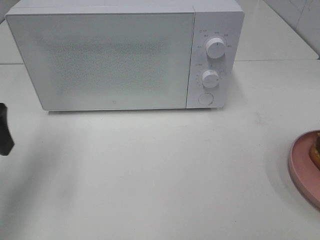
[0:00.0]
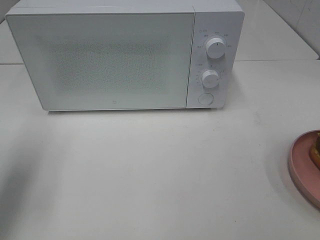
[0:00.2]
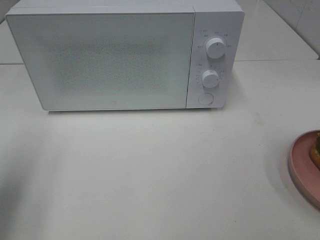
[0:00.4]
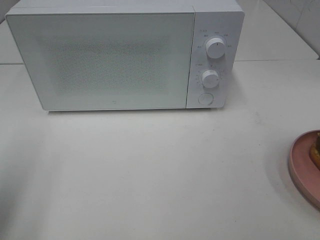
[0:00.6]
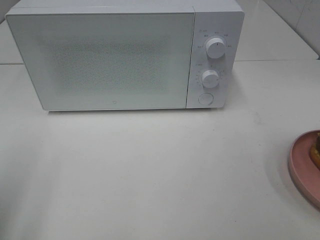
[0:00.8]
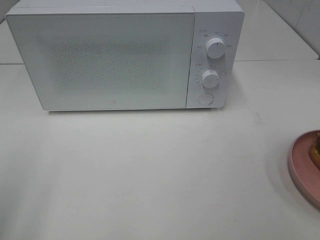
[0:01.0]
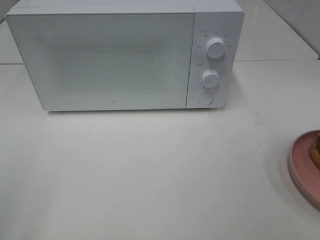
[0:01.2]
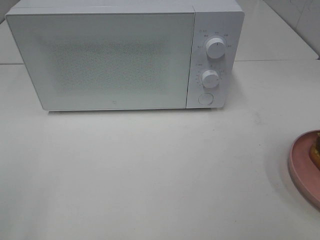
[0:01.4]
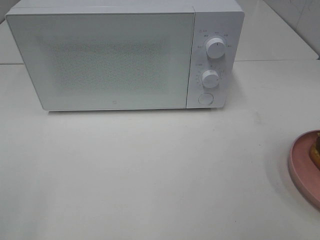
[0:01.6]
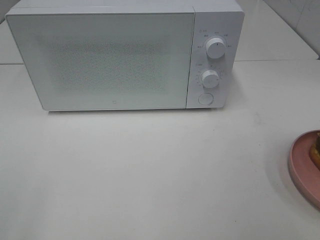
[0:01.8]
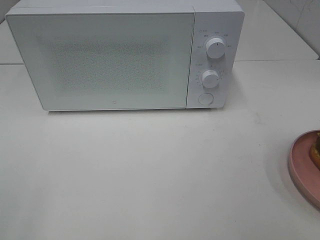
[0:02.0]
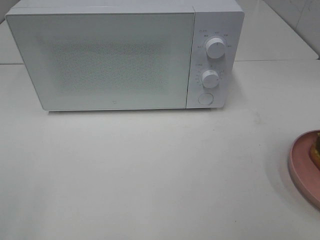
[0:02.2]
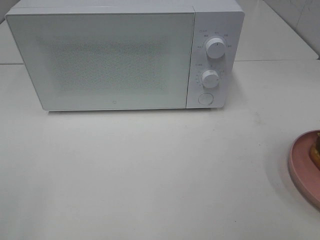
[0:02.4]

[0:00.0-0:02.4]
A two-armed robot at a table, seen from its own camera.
Task of the whole recording: Heat the burger.
0:00.0 to 0:01.2: The left gripper travels backward by approximately 20 cm.

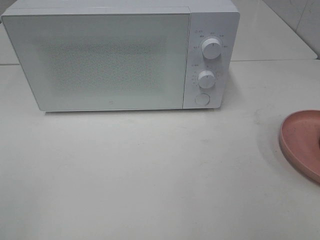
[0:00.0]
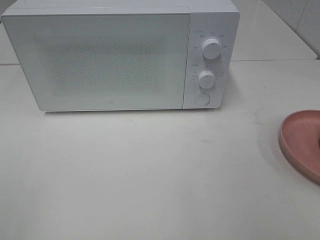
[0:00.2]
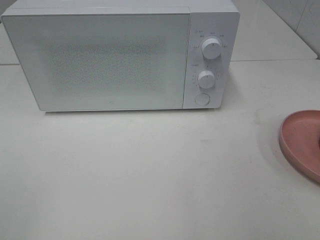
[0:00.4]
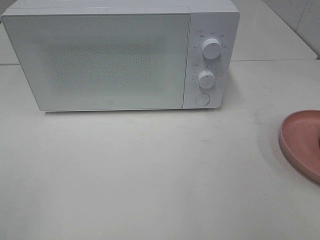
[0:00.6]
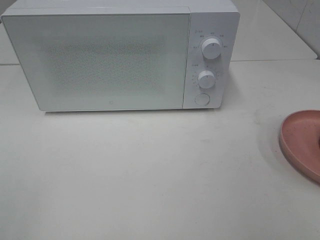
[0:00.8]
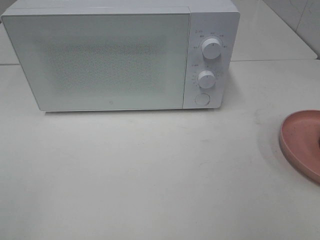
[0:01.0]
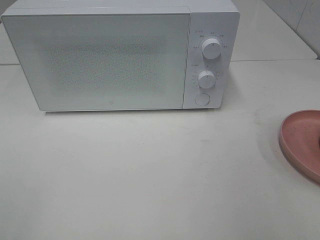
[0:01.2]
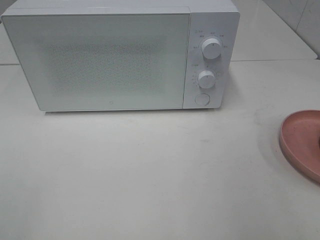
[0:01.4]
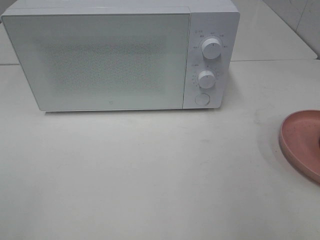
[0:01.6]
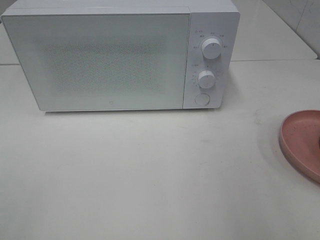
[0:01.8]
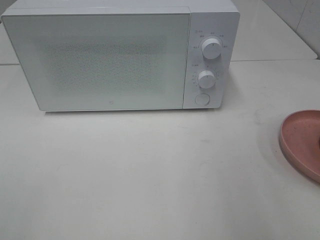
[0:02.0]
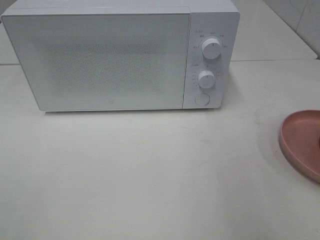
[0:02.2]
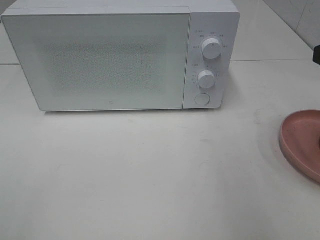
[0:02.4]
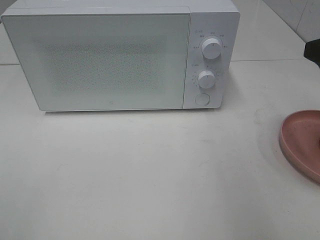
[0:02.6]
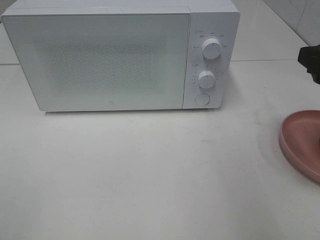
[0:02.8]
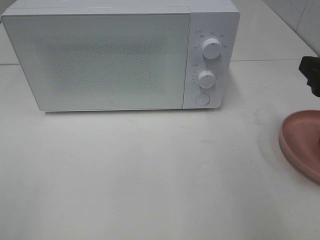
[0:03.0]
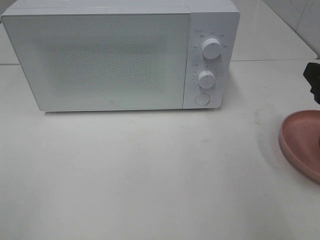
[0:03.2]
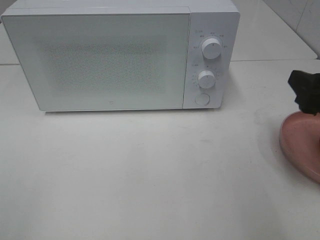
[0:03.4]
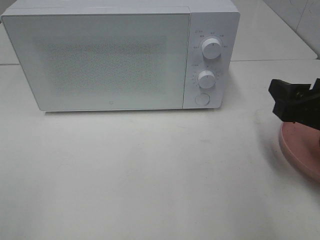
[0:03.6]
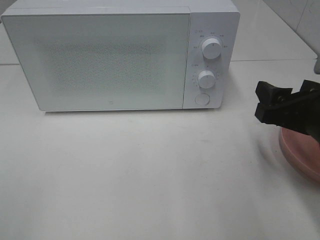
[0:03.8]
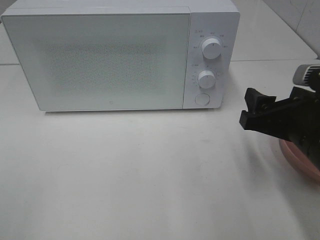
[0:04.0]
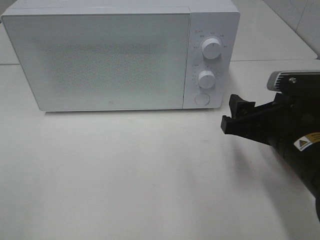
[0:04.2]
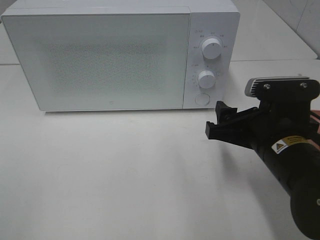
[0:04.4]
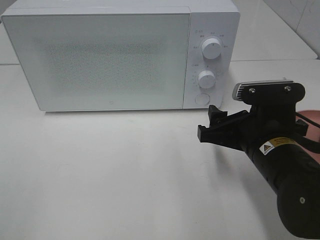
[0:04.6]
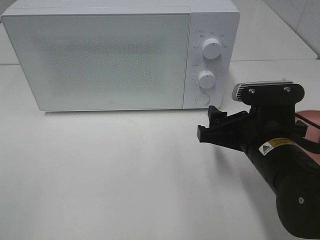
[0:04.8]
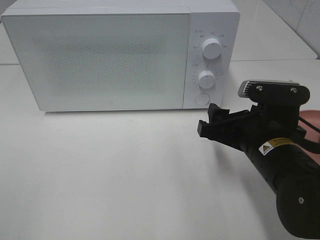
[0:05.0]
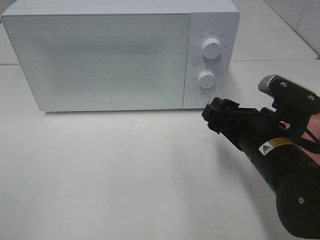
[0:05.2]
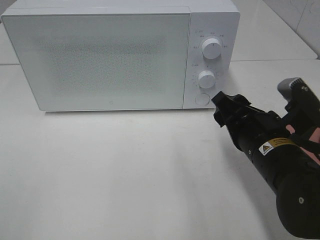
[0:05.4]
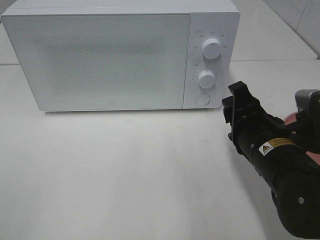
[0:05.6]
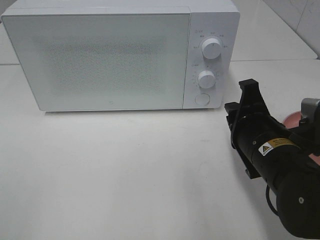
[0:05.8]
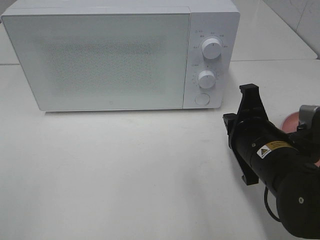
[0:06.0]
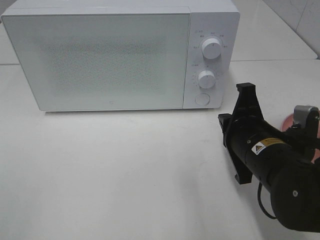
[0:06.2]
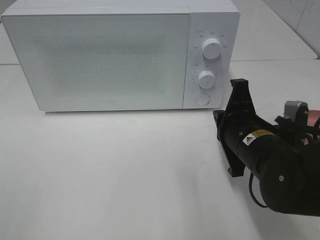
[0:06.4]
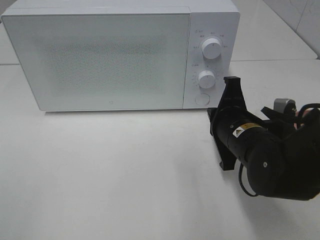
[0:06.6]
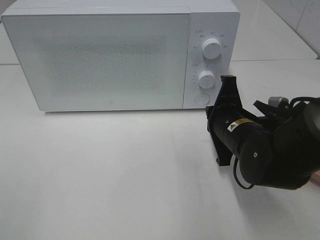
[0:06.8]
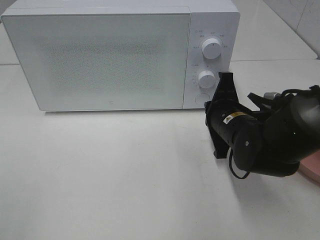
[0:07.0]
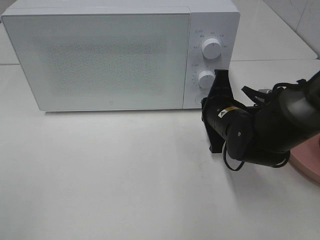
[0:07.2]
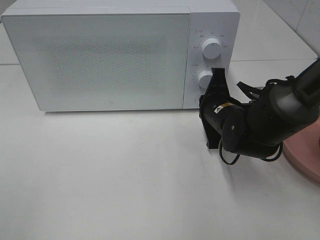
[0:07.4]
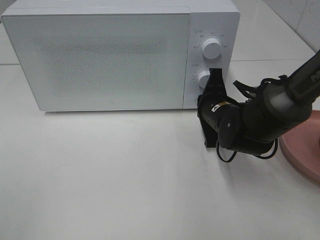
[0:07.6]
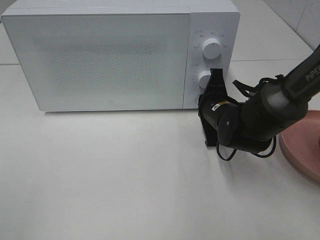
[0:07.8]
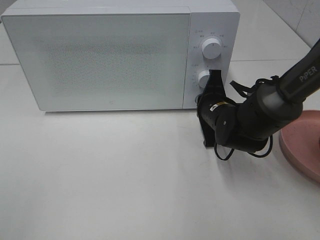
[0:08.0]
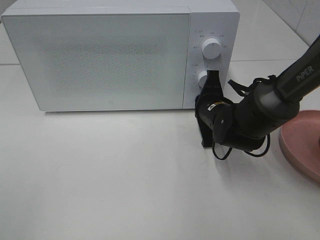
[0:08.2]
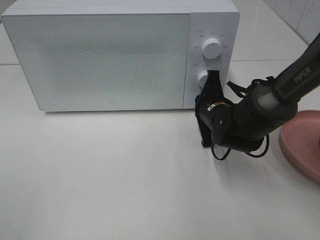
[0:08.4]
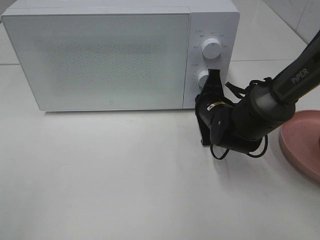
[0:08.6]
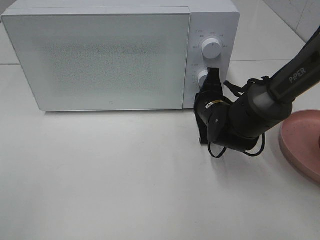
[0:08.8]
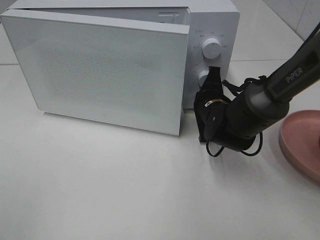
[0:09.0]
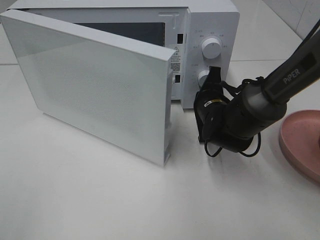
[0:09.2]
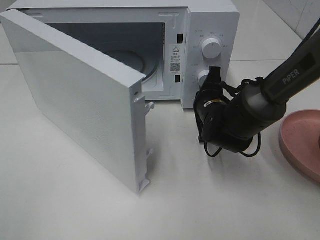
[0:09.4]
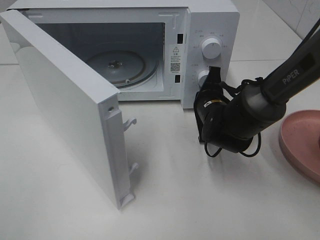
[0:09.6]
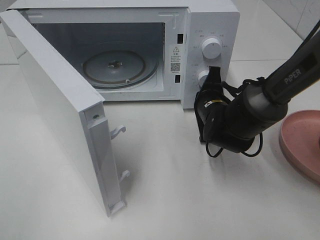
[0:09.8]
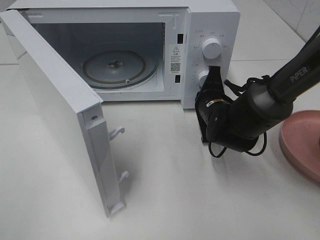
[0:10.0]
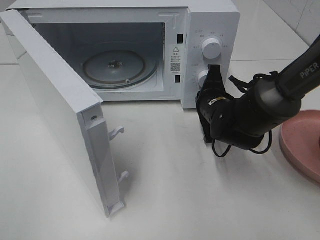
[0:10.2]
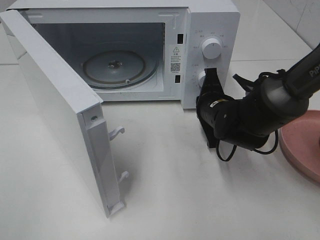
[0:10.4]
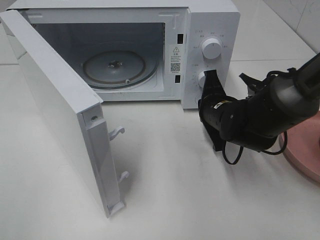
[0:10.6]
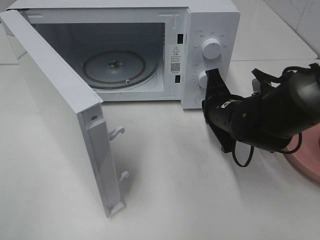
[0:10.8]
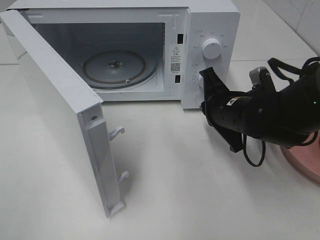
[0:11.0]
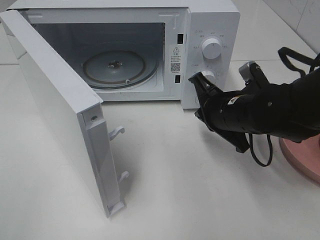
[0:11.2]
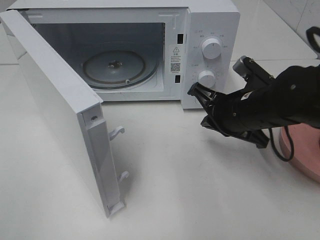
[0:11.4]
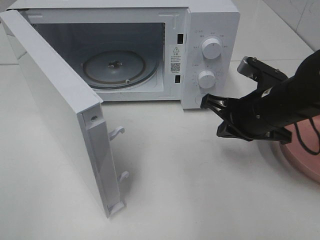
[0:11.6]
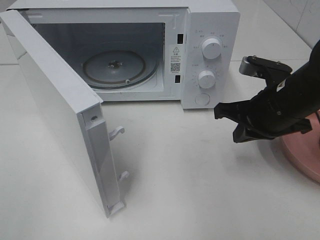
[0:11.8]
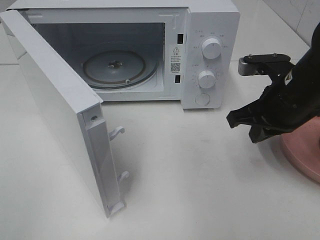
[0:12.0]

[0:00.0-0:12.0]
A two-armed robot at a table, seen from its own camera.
Task of the whole recording: Heat the burger.
Step, 0:00.0 to 0:10.4: Right hand: press the switch.
0:01.6 to 0:03.0: The right gripper heads forward and downward, covering approximately 10 cm.
0:03.0 to 0:04.4: The right gripper goes about 15 cm to the left and downward.
0:04.4 to 0:06.0: The right gripper closes up.
0:06.0 to 0:07.6: The right gripper shifts some 15 cm forward.
0:07.6 to 0:09.0: The grippers move only a little.
0:10.4 to 0:12.0: The right gripper moves upward, to the right and backward, about 15 cm.

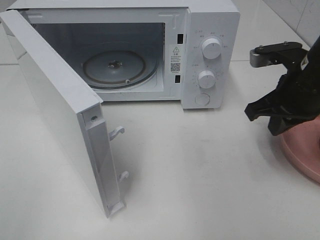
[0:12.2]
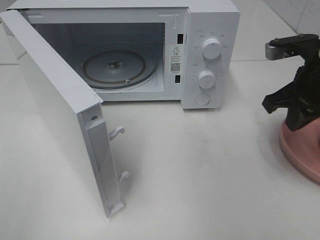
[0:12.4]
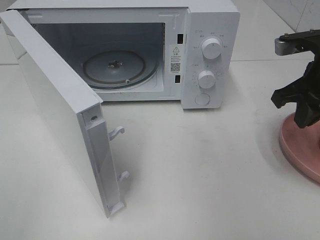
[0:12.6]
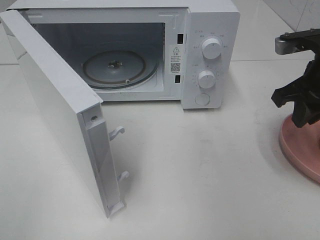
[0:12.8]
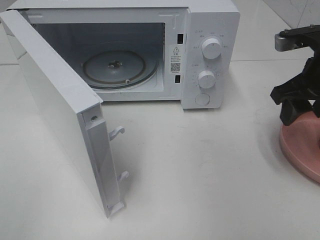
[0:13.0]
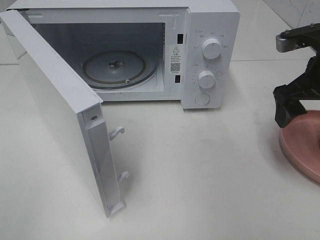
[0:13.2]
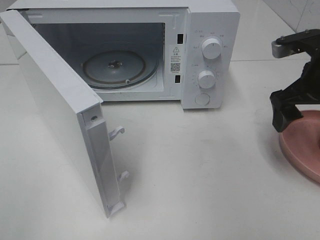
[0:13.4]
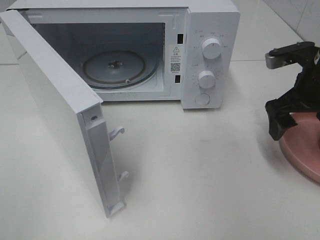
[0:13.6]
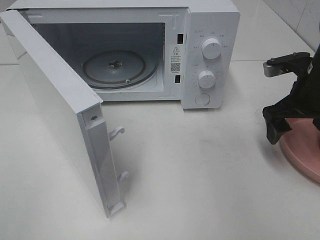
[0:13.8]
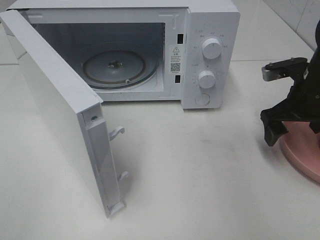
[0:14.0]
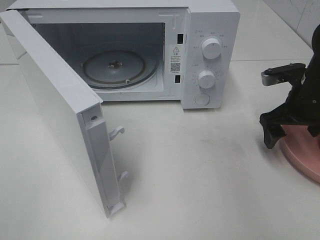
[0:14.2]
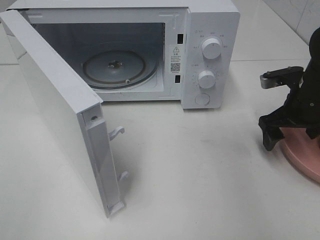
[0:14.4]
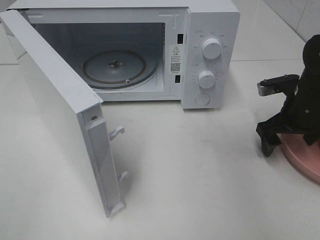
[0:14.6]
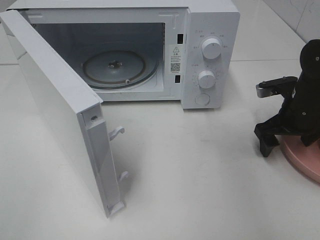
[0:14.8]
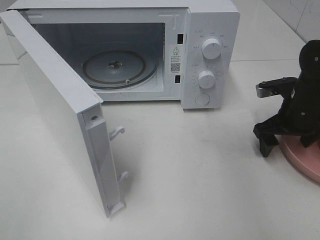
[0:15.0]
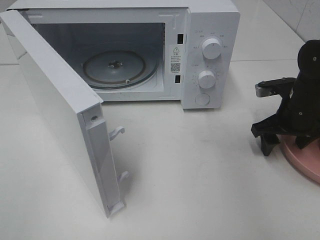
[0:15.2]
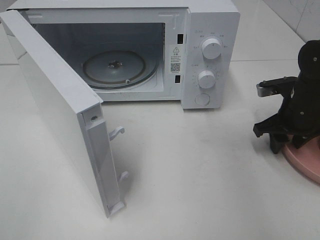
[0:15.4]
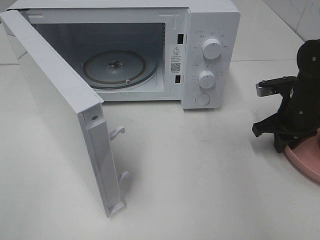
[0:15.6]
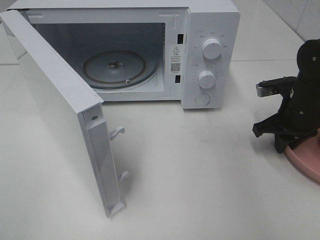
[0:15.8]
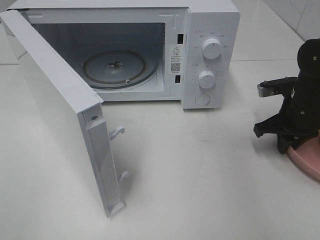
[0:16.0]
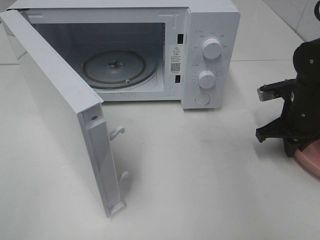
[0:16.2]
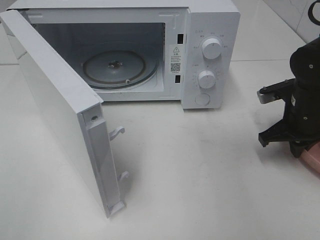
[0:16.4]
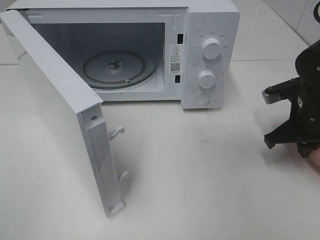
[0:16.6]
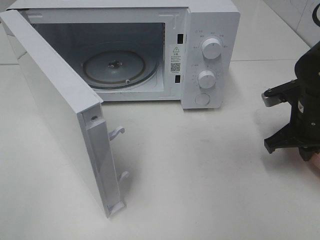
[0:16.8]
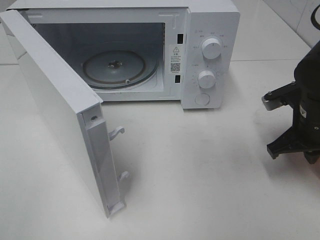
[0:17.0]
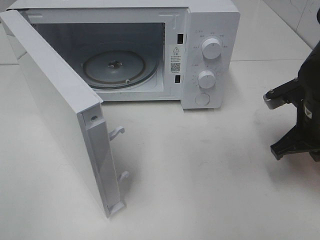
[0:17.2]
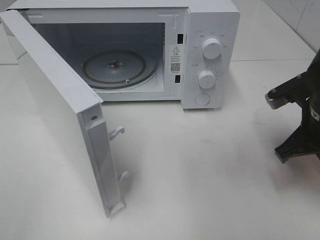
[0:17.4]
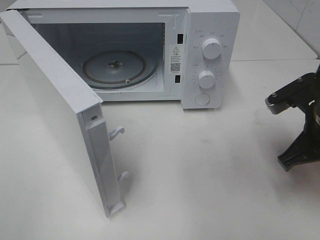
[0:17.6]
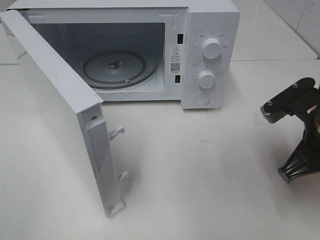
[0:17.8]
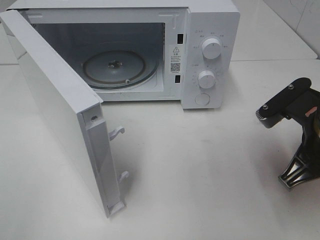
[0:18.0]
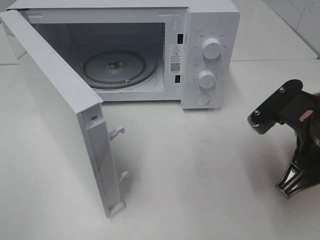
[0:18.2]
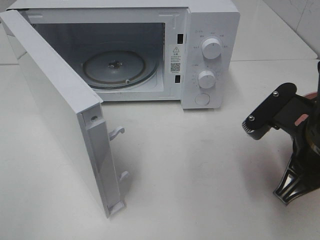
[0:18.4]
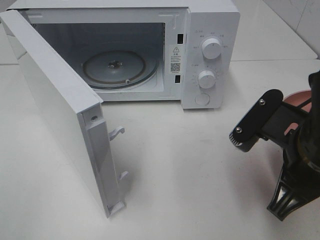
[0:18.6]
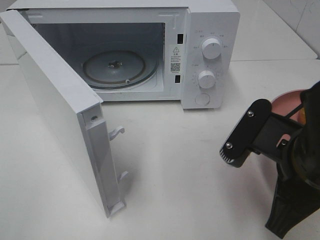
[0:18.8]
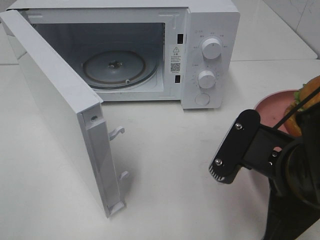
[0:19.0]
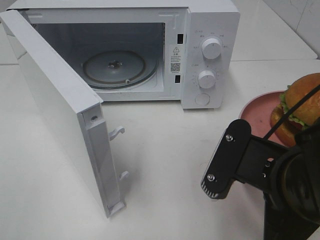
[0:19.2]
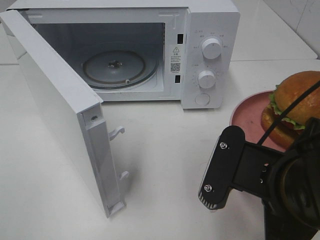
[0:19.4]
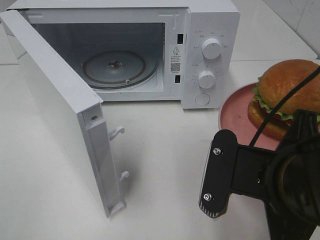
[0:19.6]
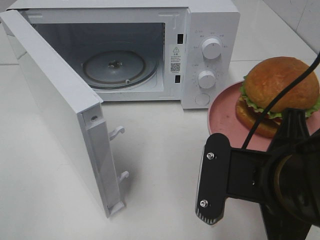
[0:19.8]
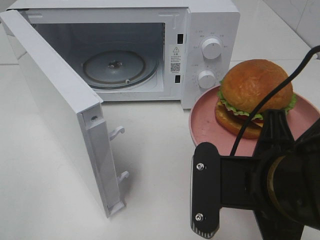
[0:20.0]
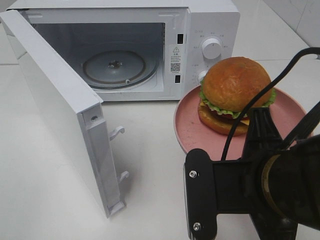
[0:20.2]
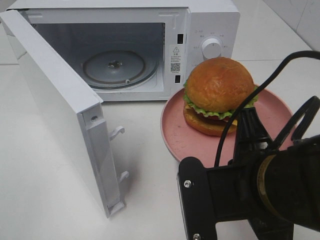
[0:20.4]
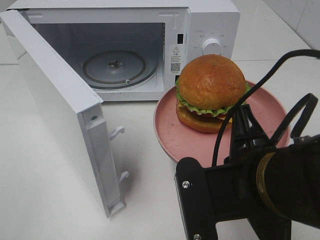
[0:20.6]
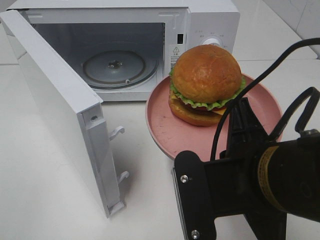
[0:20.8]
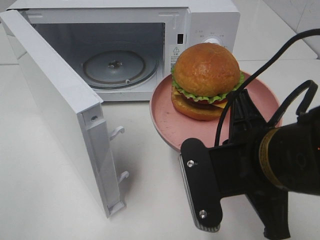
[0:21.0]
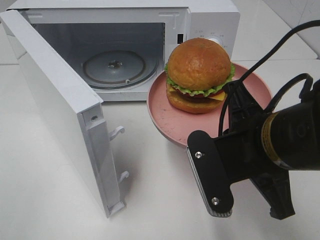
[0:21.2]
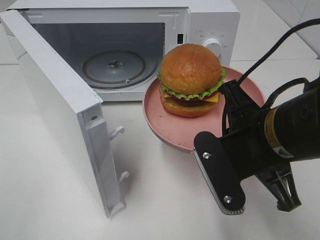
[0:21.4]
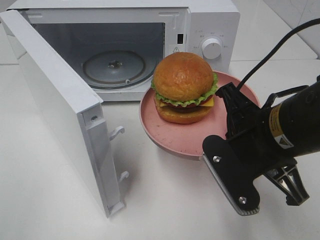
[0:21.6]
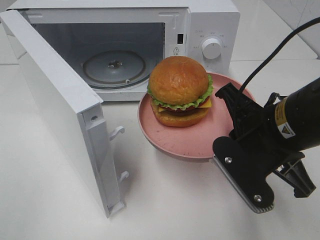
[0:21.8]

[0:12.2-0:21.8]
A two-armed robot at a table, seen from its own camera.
Task of the whole recording: Heat the burger.
Step, 0:12.2 to 0:16.2: Right hand: grab the plate with the hamburger.
0:12.2 to 0:13.8: The right gripper changes place by roughly 5 cm, and opens up.
0:13.8 to 0:15.4: The right gripper heads downward, covering roughly 5 cm, and closes up.
0:15.4 to 0:17.0: The right gripper moves backward, approximately 5 cm, and closes up.
0:17.0 to 0:18.6: The right gripper heads backward, to the left and upward, covering roughly 15 cm.
0:18.6 to 0:20.2: The right gripper travels to the left by approximately 5 cm.
0:20.2 to 0:21.8: The right gripper shifts some 10 cm forward.
